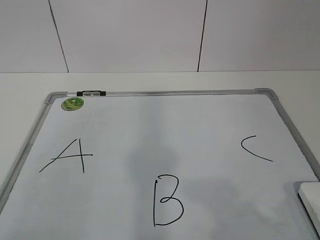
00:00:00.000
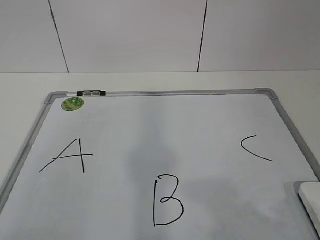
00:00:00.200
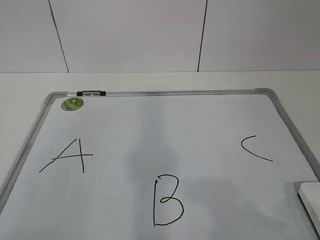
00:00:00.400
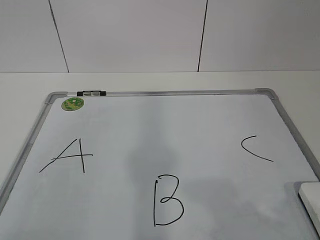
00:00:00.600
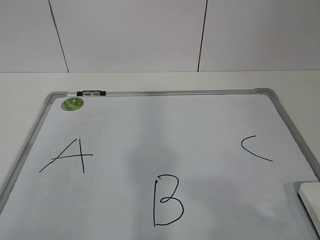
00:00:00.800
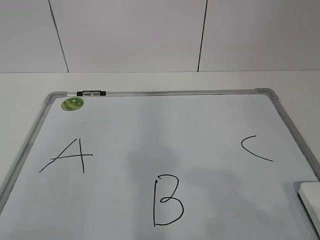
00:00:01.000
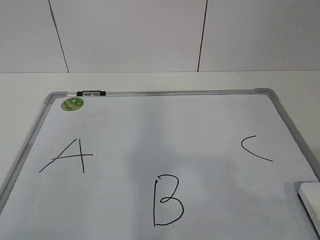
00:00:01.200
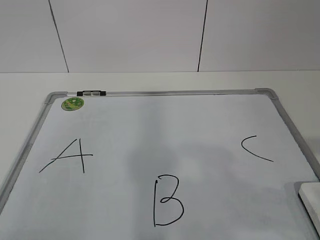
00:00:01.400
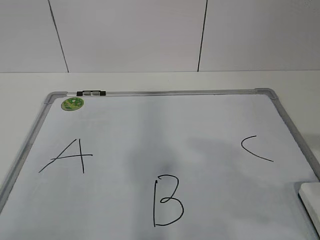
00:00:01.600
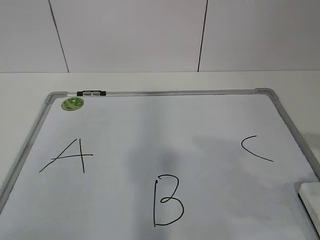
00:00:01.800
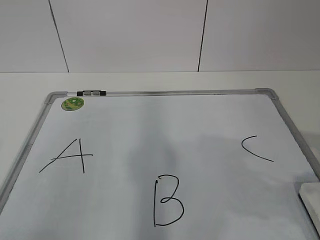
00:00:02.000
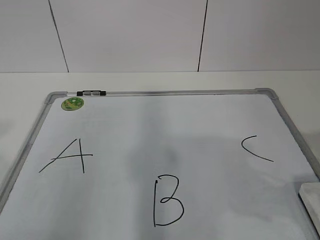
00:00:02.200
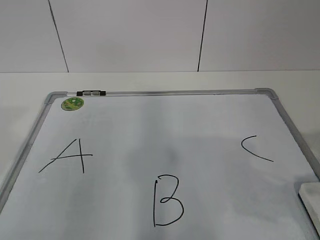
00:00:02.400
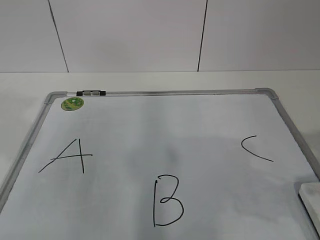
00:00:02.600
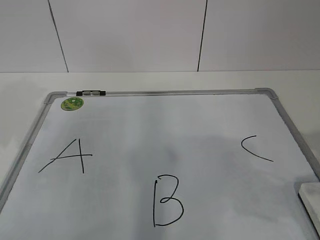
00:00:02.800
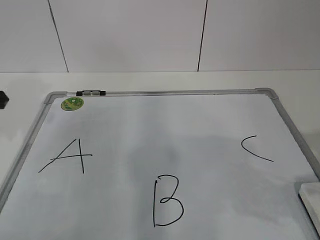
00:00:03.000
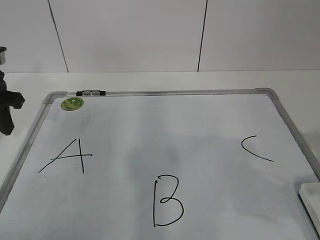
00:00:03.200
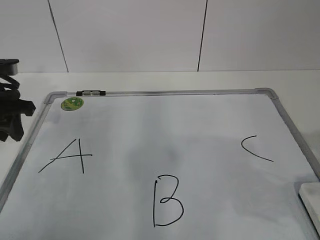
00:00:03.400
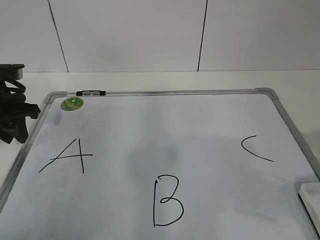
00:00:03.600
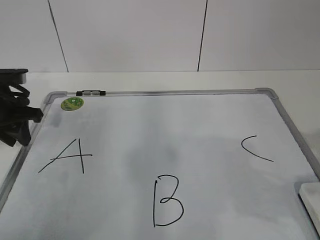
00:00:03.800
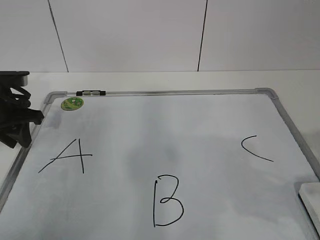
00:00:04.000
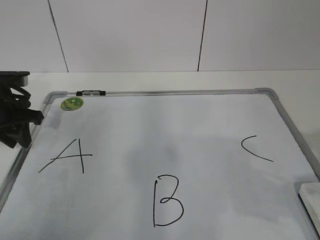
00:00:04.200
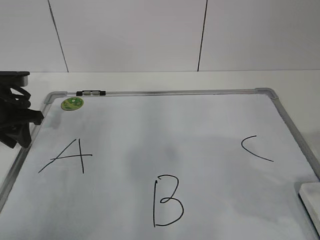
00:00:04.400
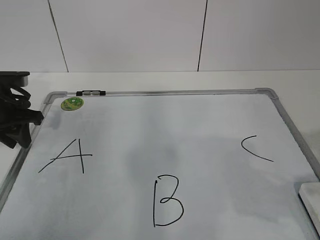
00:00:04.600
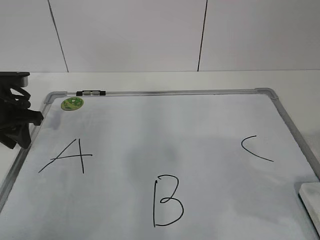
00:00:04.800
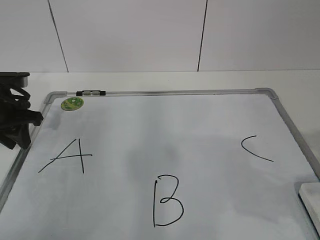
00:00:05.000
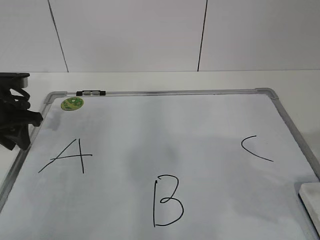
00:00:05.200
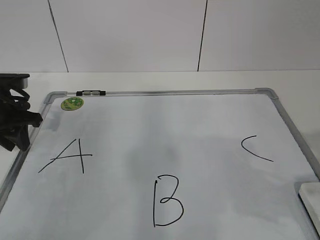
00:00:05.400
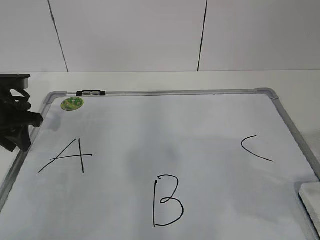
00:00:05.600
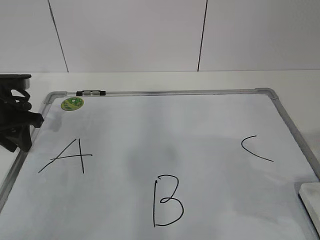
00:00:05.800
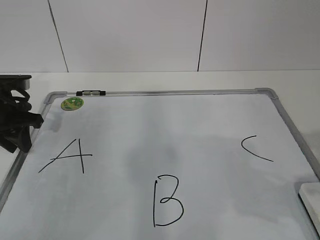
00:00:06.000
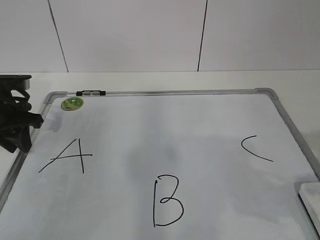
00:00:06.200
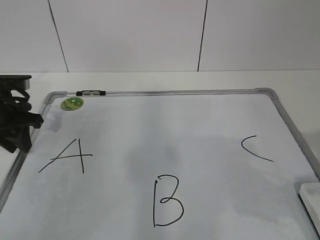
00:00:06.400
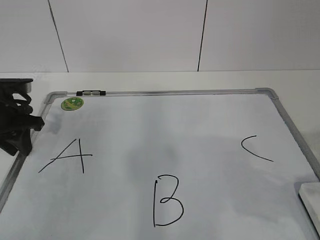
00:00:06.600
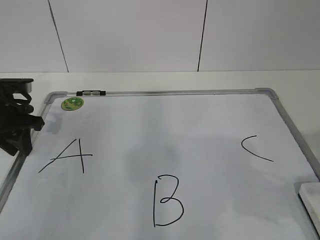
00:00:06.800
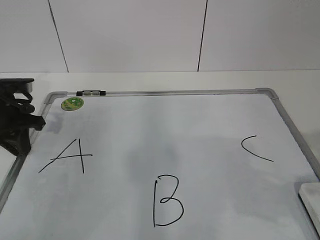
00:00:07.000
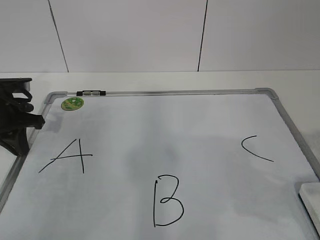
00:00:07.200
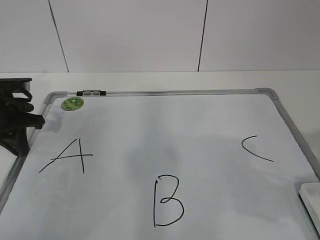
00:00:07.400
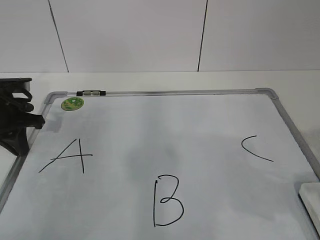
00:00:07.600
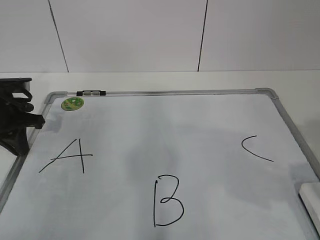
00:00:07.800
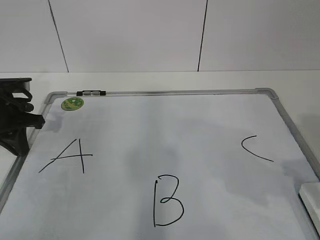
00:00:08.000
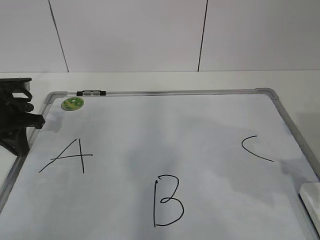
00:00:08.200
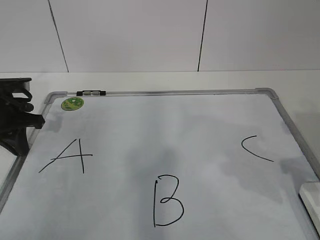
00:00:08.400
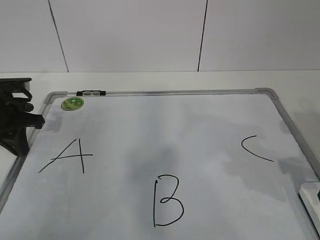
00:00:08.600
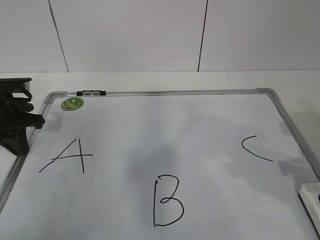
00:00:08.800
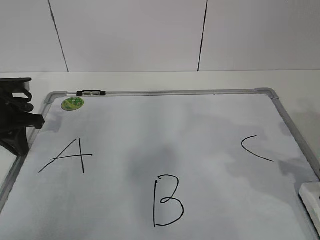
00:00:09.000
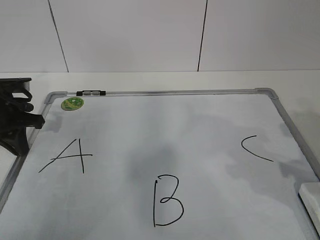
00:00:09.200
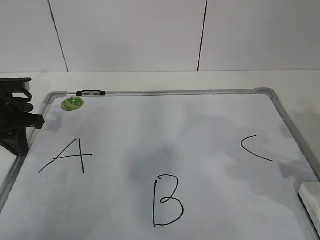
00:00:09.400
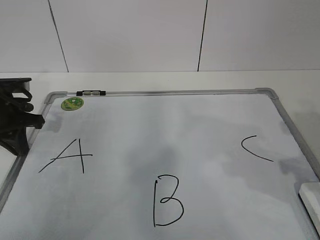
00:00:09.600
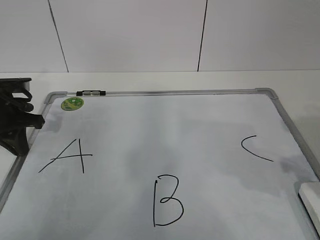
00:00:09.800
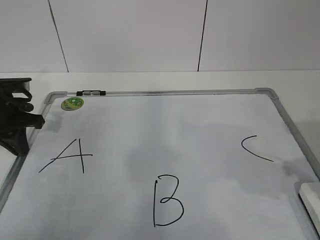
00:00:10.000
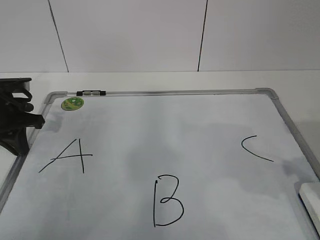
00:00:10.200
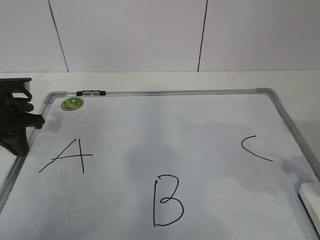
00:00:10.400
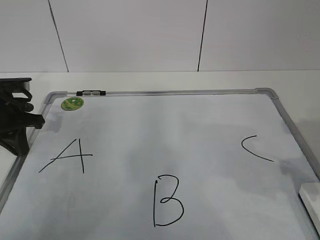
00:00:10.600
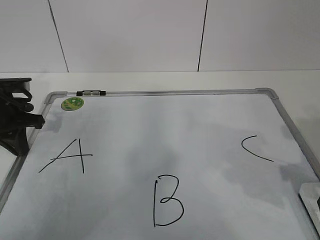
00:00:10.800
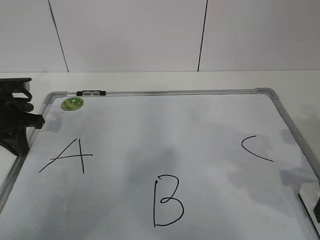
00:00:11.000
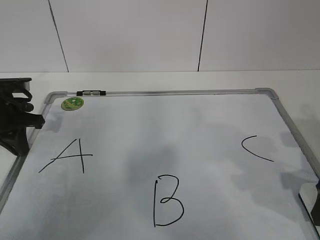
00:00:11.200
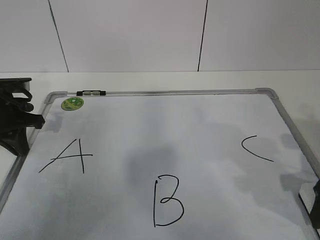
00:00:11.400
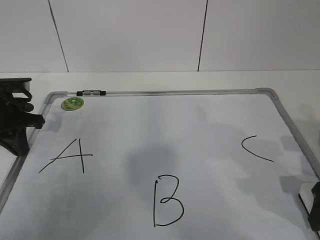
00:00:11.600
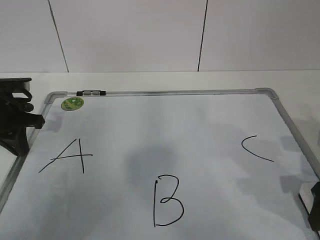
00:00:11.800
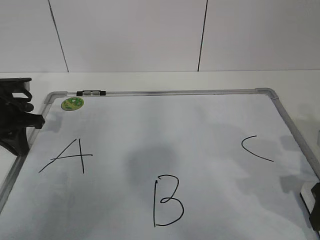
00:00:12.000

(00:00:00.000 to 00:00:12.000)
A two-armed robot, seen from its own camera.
Task of the whole recording: pick up the eraser on the blackboard and erase the letter "B".
Step, 00:00:00.000 - 00:00:05.800: Hold the drawing board steady with your left hand.
00:00:03.000 - 00:00:04.400: The left gripper heads downward and forward, covering approximately 10 cm.
00:00:04.400 - 00:00:06.000: The two grippers keep their place.
00:00:06.000 - 00:00:07.600: The left gripper closes.
00:00:10.400 - 00:00:12.000: The right gripper goes about 5 cm downward, and opens, then closes again.

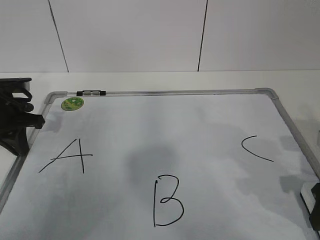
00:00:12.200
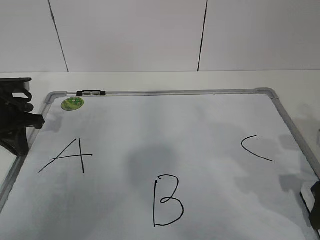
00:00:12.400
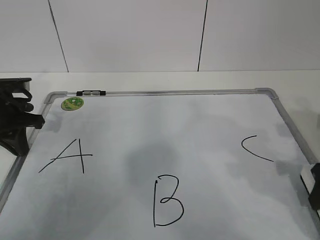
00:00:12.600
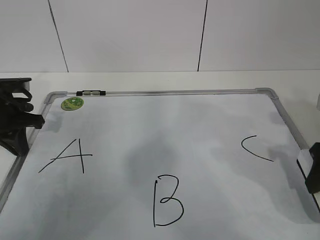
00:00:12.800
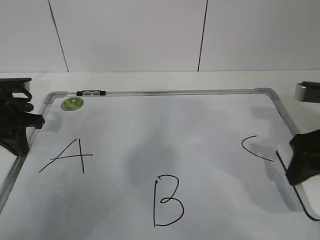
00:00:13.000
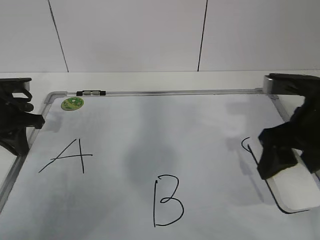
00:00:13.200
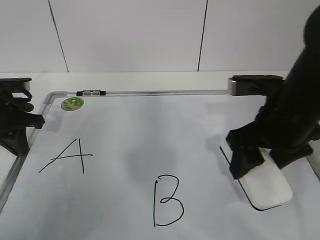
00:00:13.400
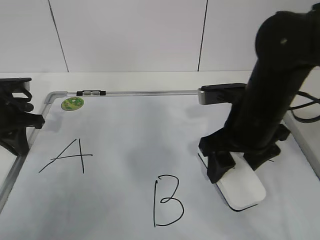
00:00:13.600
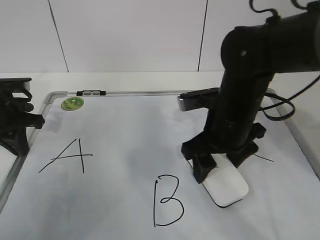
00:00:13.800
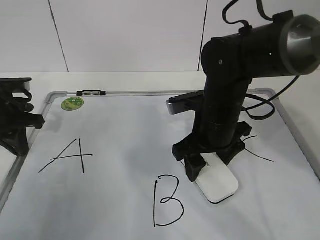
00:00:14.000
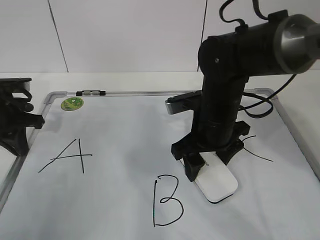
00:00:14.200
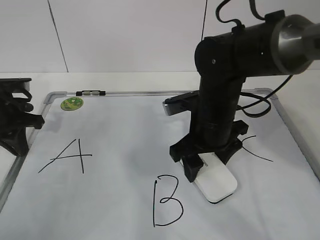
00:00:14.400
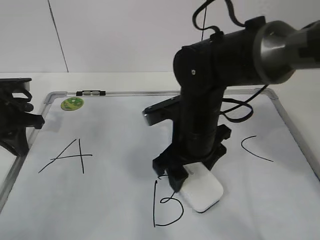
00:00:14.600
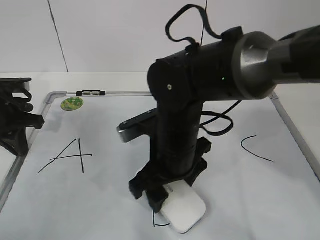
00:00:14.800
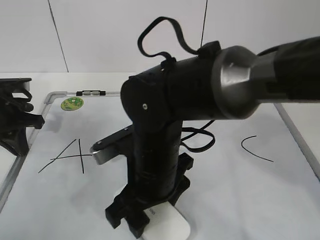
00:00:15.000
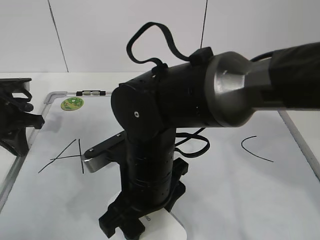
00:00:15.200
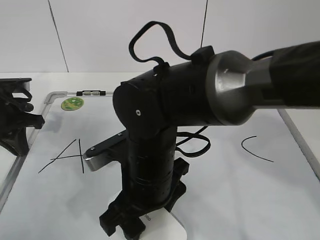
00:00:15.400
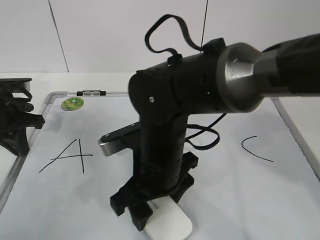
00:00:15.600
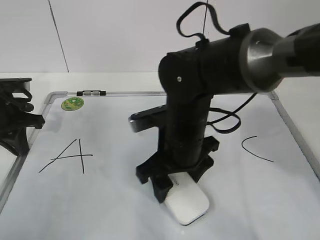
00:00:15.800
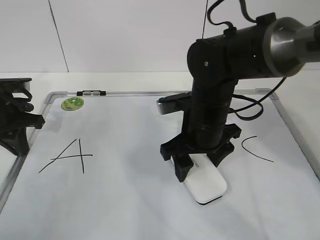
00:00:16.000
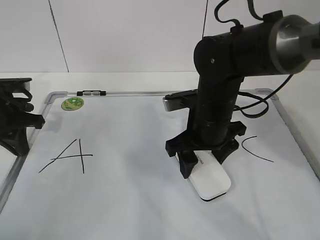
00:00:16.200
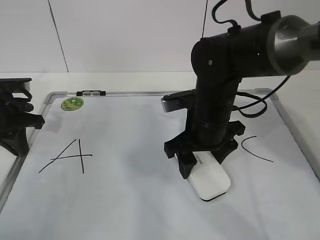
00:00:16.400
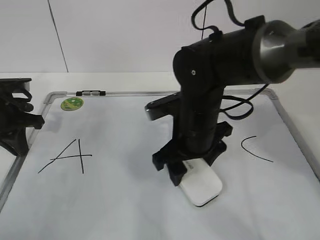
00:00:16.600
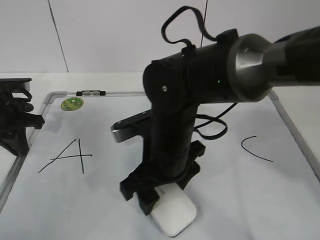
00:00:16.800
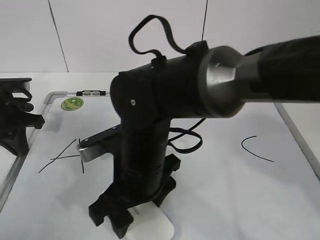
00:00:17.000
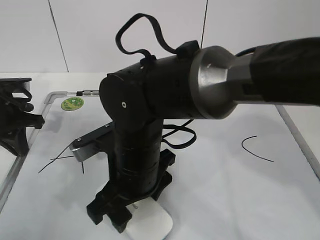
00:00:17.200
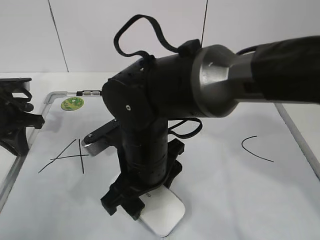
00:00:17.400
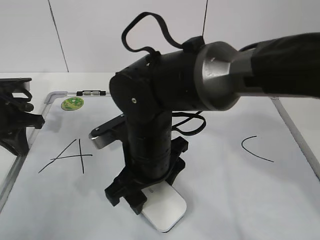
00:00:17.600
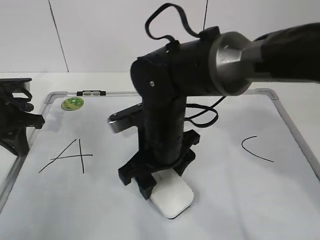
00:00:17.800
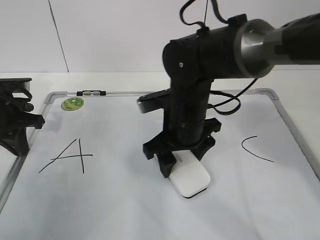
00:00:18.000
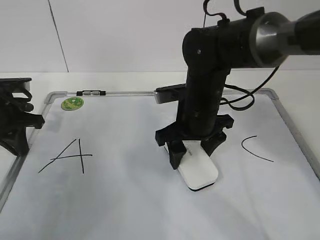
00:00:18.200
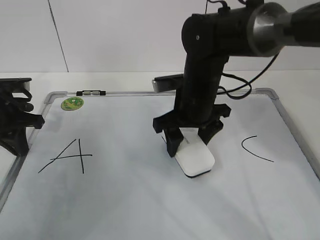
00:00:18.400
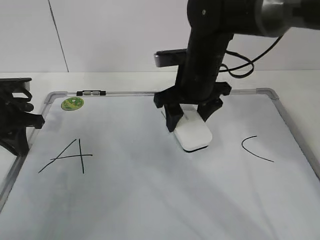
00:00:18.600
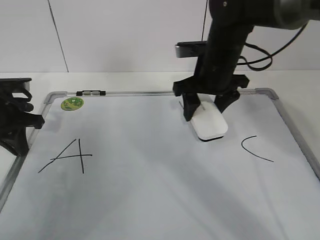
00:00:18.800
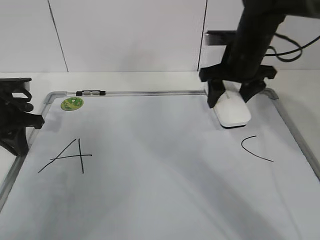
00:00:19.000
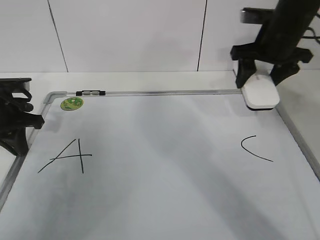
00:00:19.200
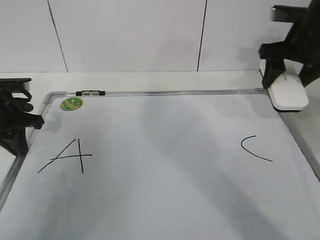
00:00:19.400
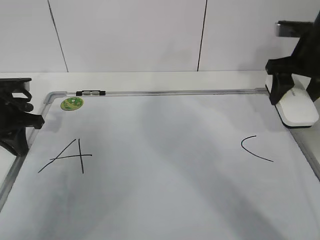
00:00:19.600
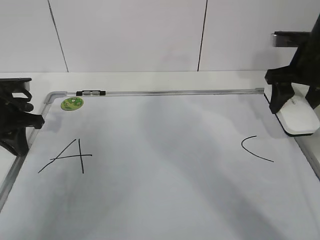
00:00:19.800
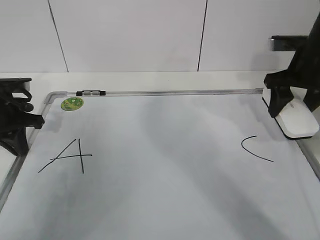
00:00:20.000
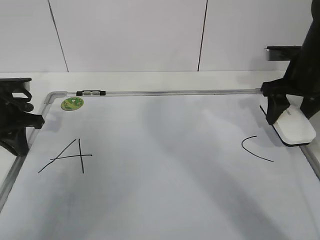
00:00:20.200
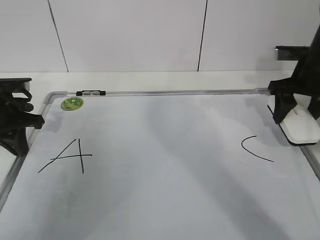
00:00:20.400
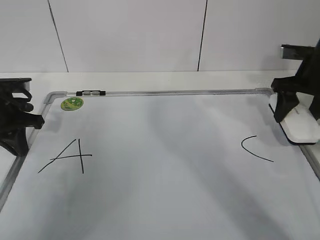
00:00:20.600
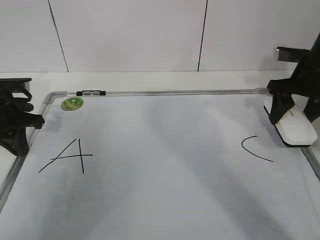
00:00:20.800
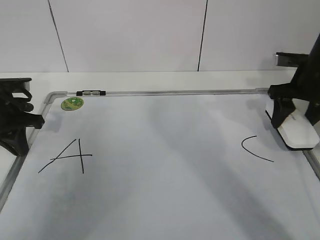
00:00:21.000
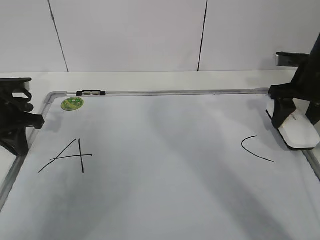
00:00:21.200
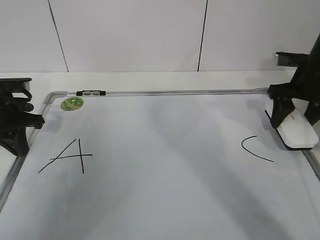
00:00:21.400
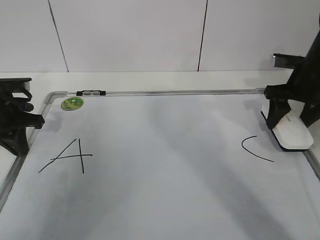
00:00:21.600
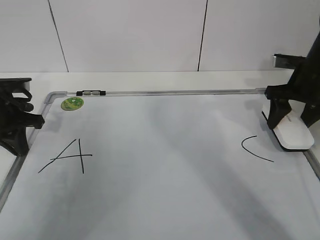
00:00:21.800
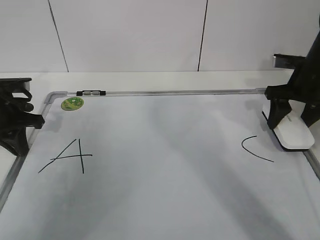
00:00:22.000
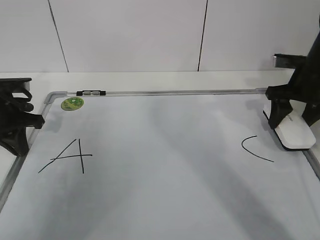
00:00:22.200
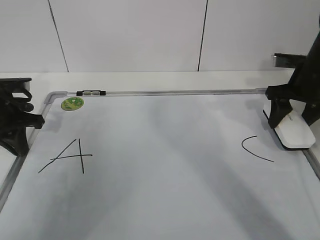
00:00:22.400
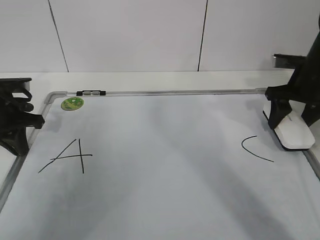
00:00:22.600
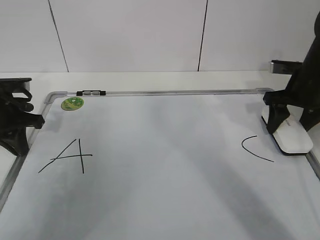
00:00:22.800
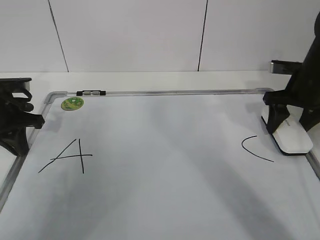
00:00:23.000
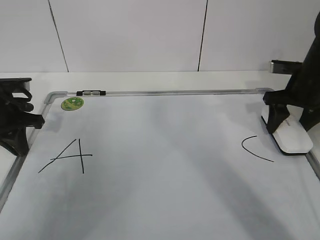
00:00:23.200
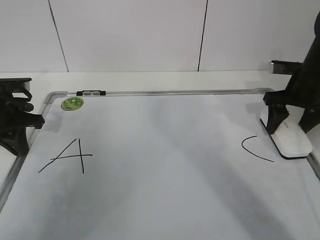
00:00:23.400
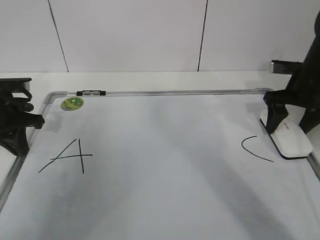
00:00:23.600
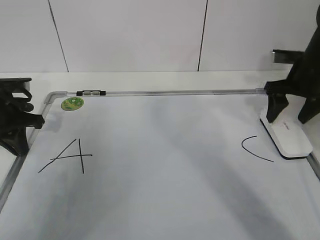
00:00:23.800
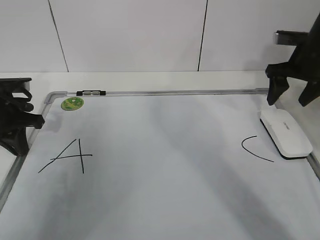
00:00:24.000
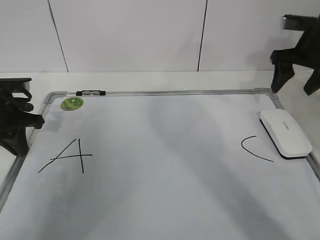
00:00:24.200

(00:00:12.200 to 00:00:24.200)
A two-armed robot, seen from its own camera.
Task of the whole recording: pick up the eraser on the blackboard and erase the letter "B".
Step, 00:00:12.200 - 00:00:15.000: Erase the letter B with your right hand.
Step, 00:00:15.200 - 00:00:19.400: Put down the eraser with your right hand.
00:00:12.200 - 00:00:13.800: The right gripper heads to the left and forward, covering some 20 cm.
00:00:13.800 - 00:00:15.200: The right gripper shifts approximately 15 cm to the left and backward.
00:00:15.200 - 00:00:16.600: The right gripper moves forward and to the right, roughly 10 cm.
00:00:18.200 - 00:00:19.800: The right gripper shifts approximately 20 cm to the right.
00:00:19.800 - 00:00:21.200: The grippers stay close to where they were, moving slightly.
00:00:21.200 - 00:00:22.600: Neither gripper changes place.
00:00:22.600 - 00:00:24.200: The right gripper is displaced upward by some 5 cm, and opens.
